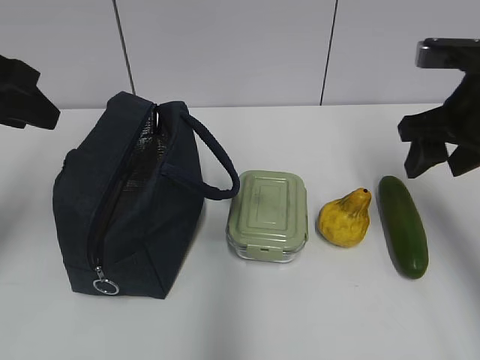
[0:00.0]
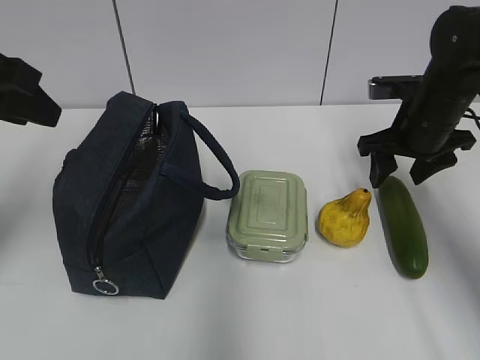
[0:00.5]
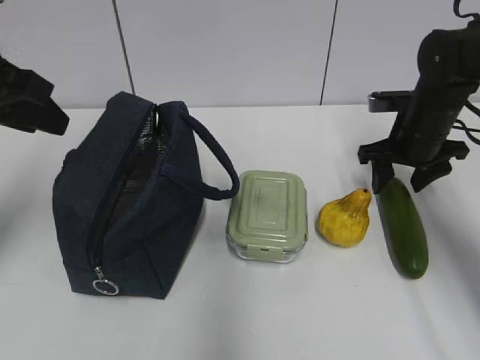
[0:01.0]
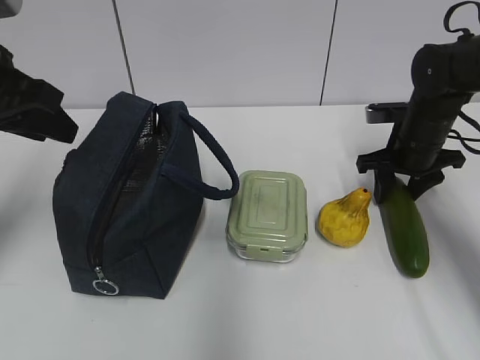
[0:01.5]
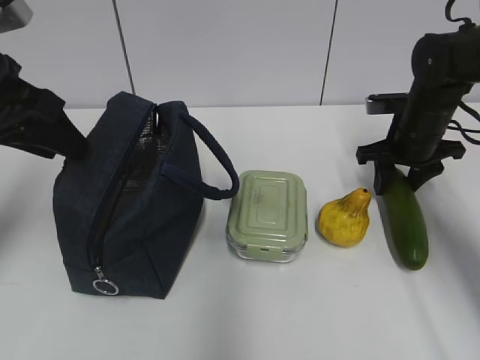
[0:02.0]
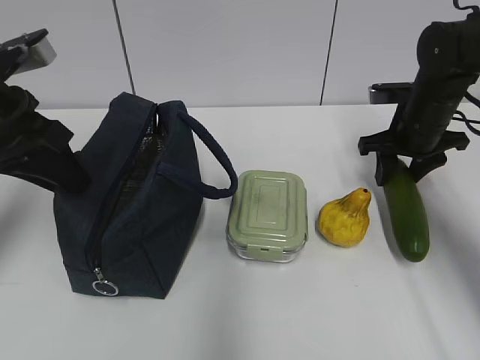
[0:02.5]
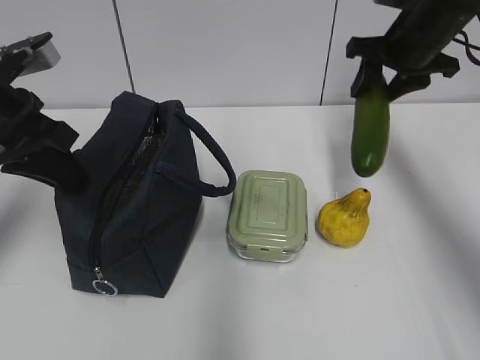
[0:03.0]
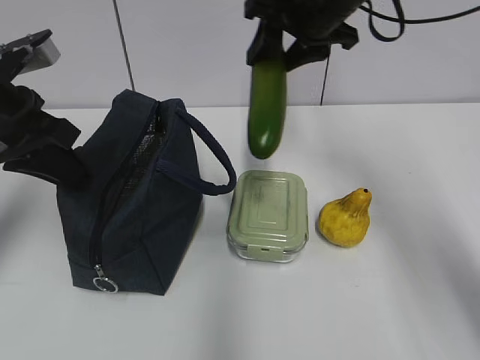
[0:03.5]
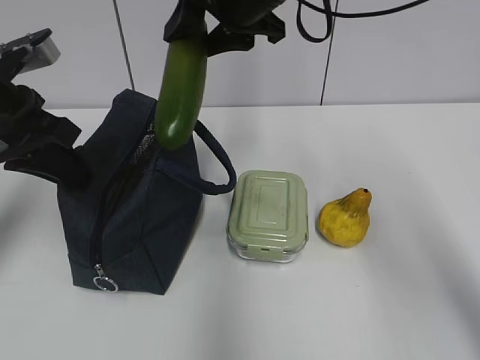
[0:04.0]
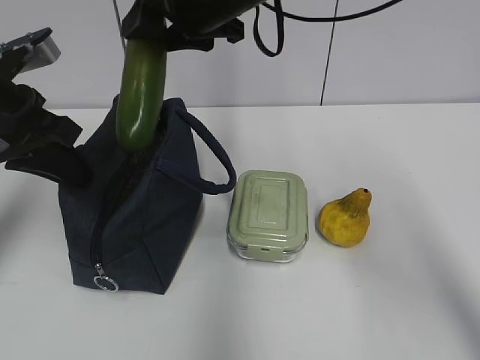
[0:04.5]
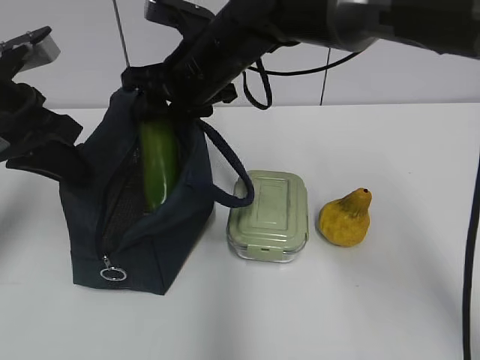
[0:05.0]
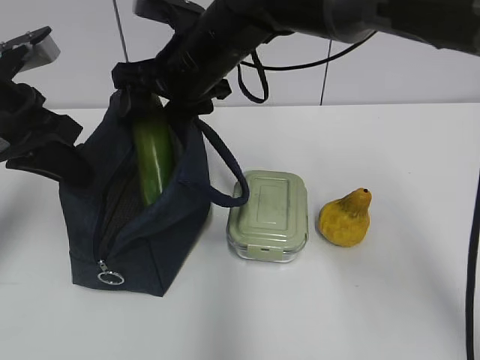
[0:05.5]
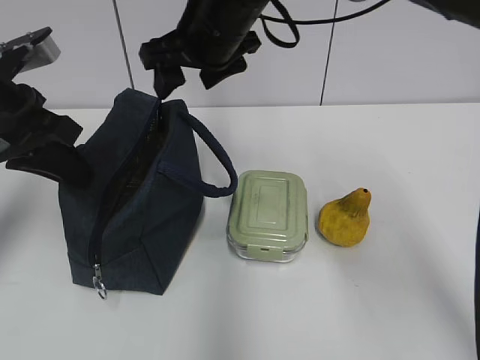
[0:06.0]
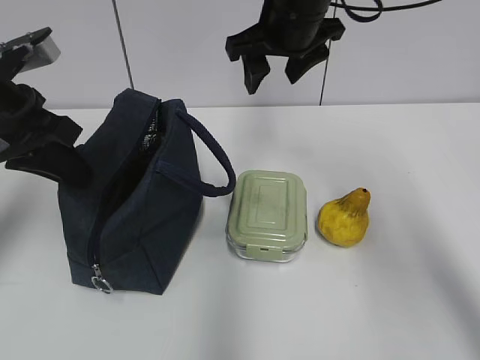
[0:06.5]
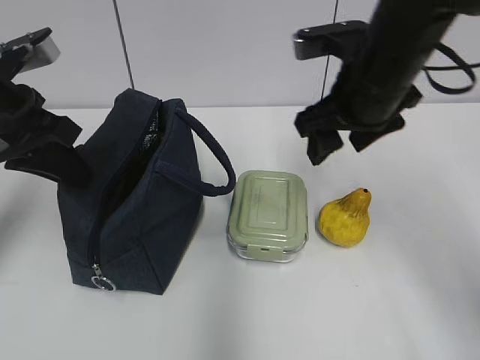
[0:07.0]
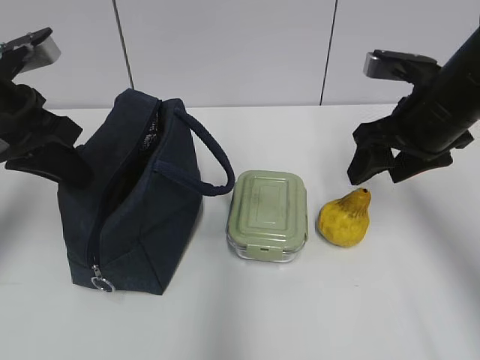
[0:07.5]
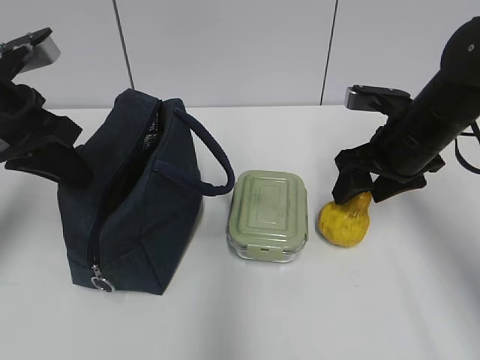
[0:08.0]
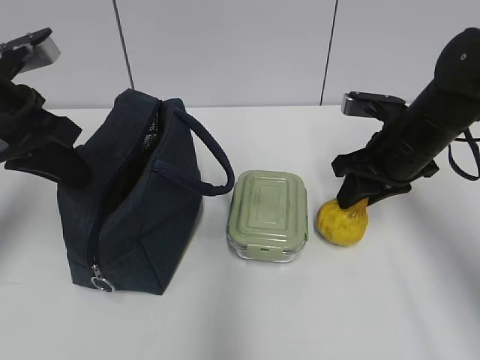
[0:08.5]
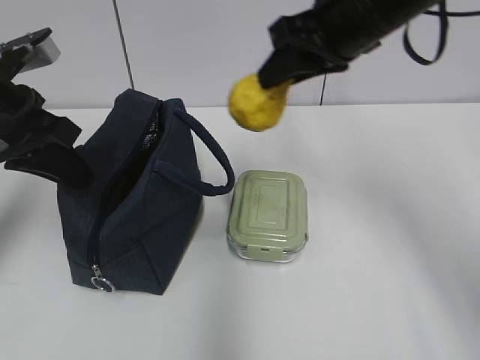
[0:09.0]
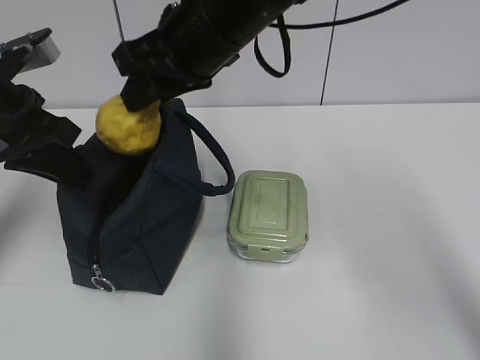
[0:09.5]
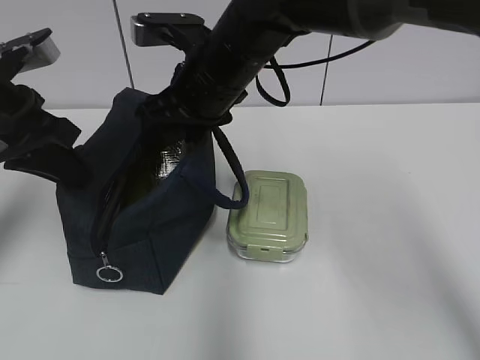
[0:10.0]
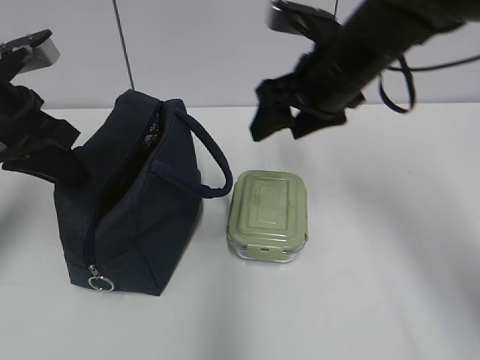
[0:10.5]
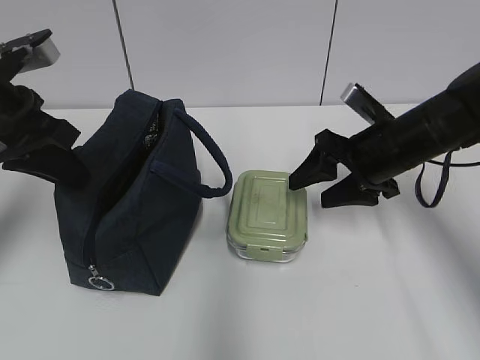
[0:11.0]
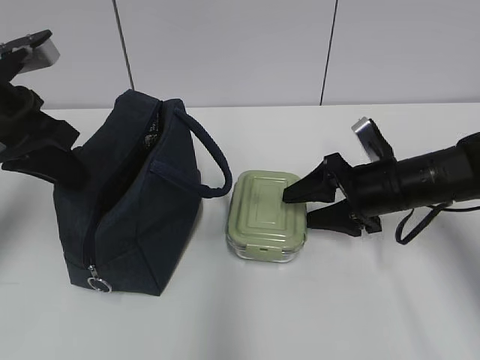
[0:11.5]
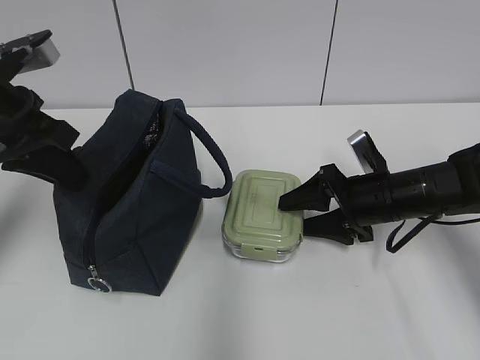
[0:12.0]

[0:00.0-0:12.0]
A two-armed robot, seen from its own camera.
Step, 0:05.0 to 0:06.0: Place it into the bag with your right hand.
Step, 0:06.5 to 0:08.0: Grab the pear with your right hand.
Step, 0:08.5 to 0:10.0: Place it into the bag with your right hand.
0:00.0 to 0:02.0: The right gripper heads forward and downward, covering about 15 cm.
0:02.0 to 0:04.0: The right gripper heads to the left and upward, covering roughly 30 cm. The left gripper closes.
0:06.0 to 0:08.0: The right gripper is displaced to the right and downward by approximately 25 cm.
0:08.0 to 0:10.0: The right gripper is displaced to the left by roughly 20 cm, and closes and opens again.
0:10.0 to 0:12.0: The right gripper moves to the right and downward, about 25 cm.

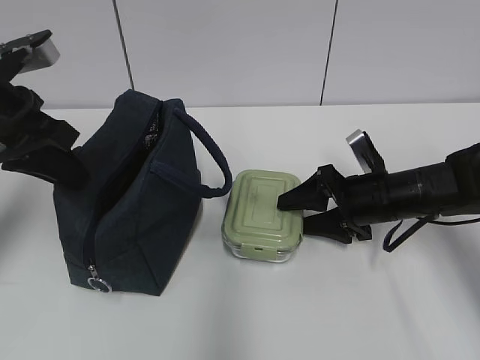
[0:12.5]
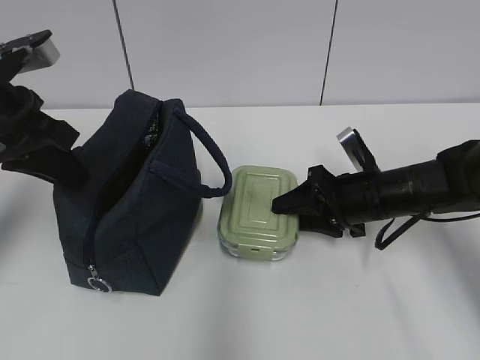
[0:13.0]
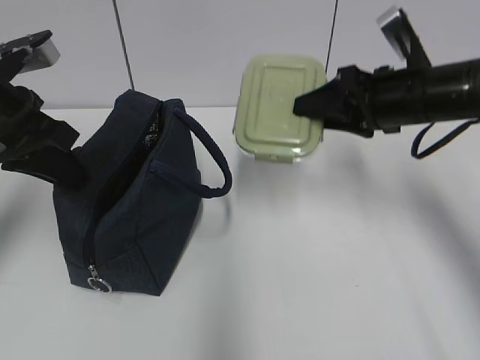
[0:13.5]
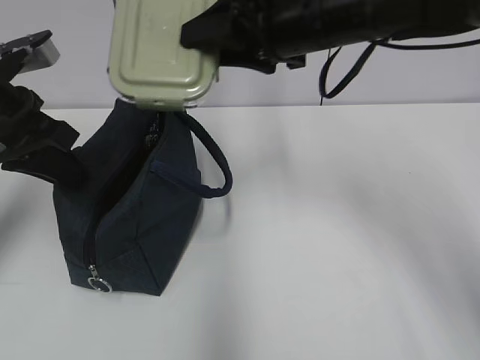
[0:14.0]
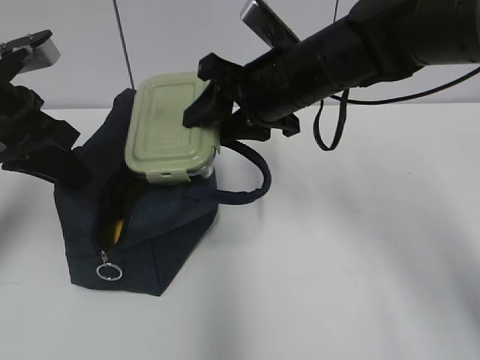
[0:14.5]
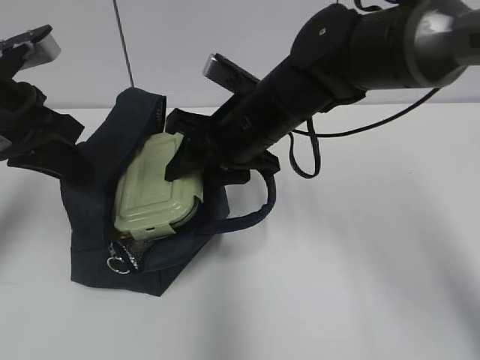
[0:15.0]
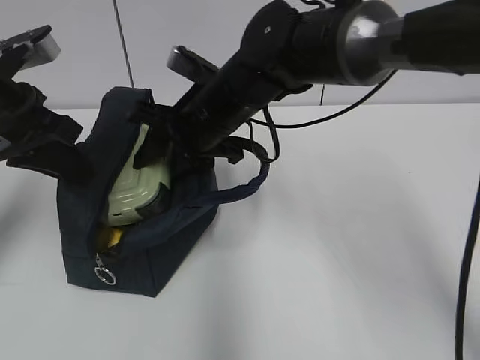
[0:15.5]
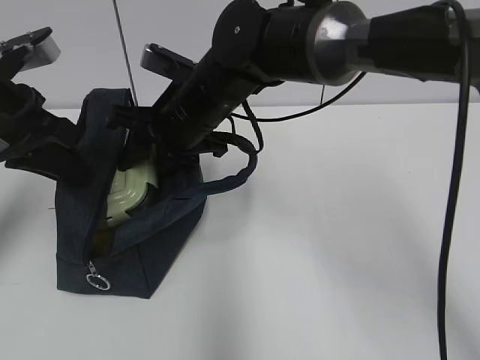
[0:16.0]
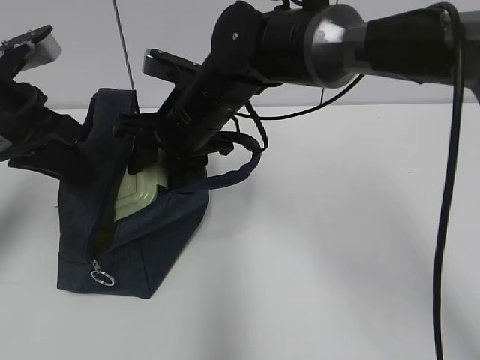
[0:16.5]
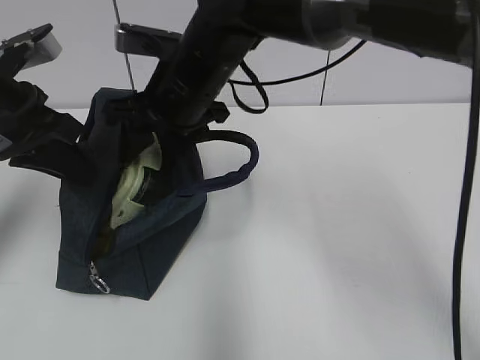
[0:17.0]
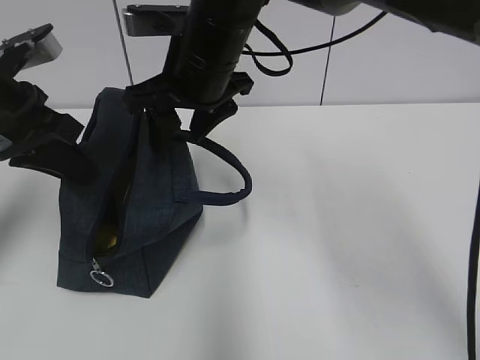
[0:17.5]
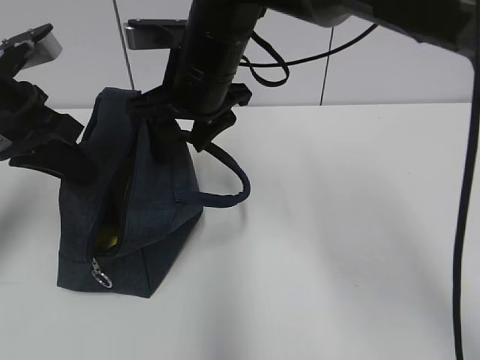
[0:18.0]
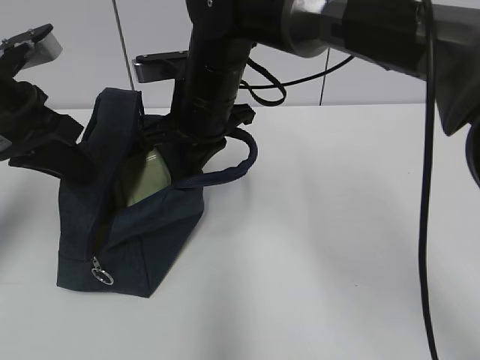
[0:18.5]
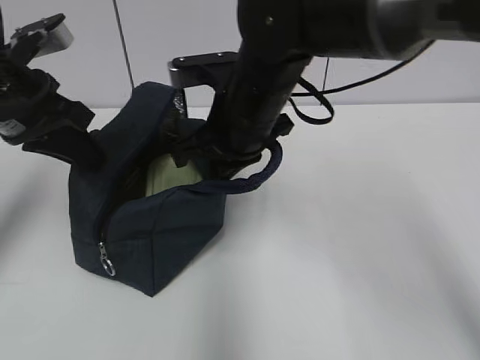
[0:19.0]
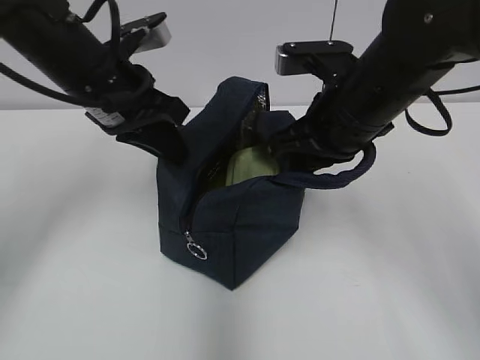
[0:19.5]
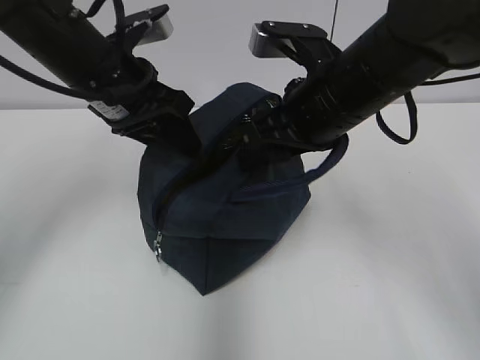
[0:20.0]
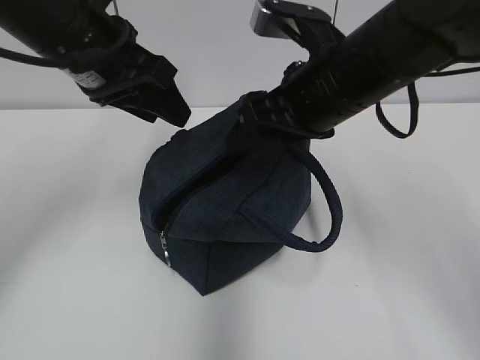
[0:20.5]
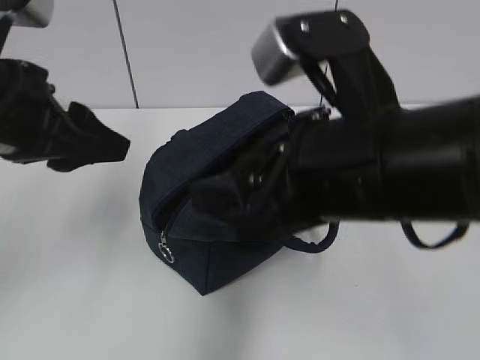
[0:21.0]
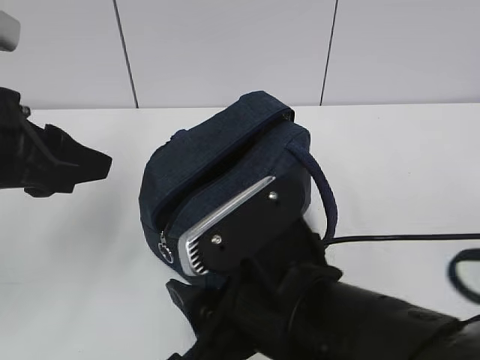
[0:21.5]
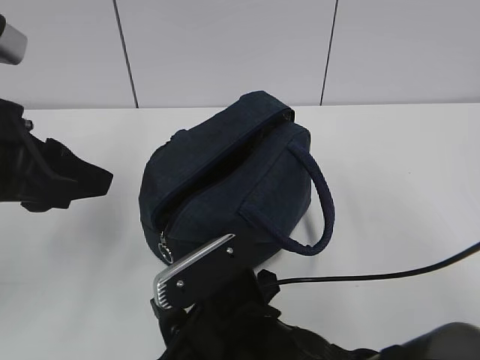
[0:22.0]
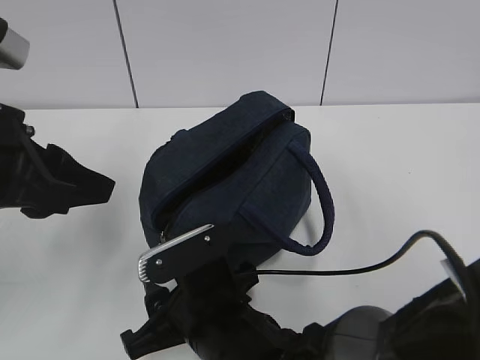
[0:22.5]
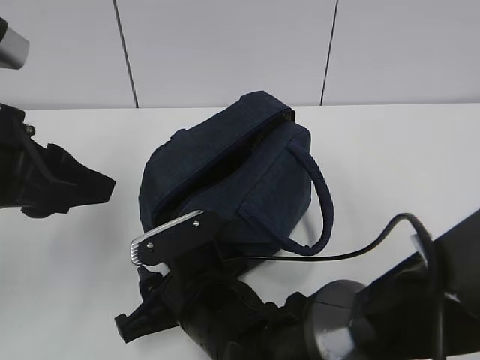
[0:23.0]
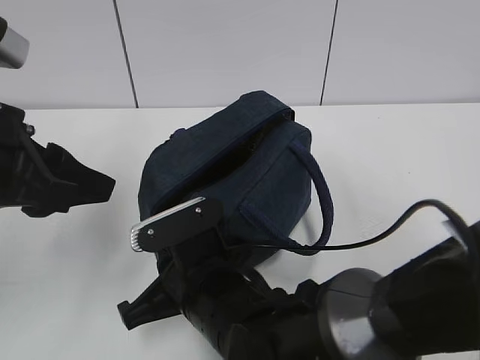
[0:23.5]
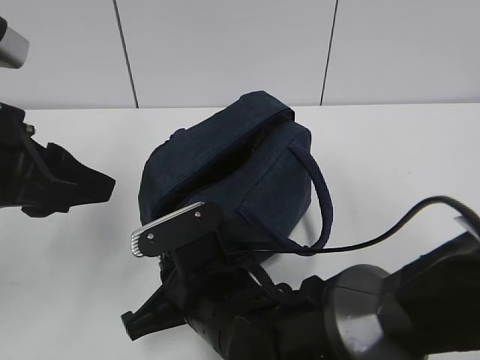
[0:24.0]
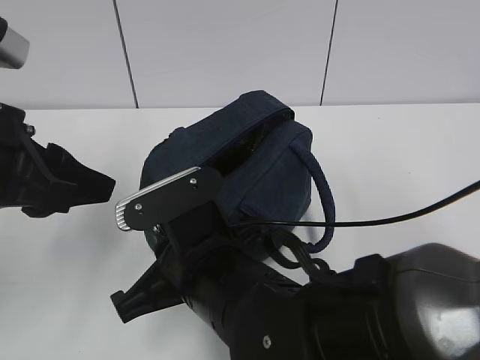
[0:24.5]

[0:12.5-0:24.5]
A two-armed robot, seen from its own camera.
Step, 0:17.5 to 0:18.0: Grab the lunch bag with your right hand.
Step, 0:18.5 to 0:19.5: Move the lunch bag to the right.
0:12.5 to 0:14.5: The right gripper shifts some 20 cm upward and to the left.
0:14.5 to 0:16.5: The right gripper is displaced to the left by about 10 cm.
0:16.5 to 0:18.5: The right gripper closes.
0:18.5 to 0:20.5: The left gripper is displaced to the right by some 10 cm, and opens. Meanwhile the right gripper shifts about 15 cm to the right and backward, and opens its fingers.
0:20.5 to 0:22.5: The right gripper is displaced downward, to the left and backward by approximately 25 cm. Meanwhile the left gripper is displaced backward and to the left by roughly 15 cm.
0:22.5 to 0:24.5: The right gripper shifts about 5 cm upward, and closes its fingers.

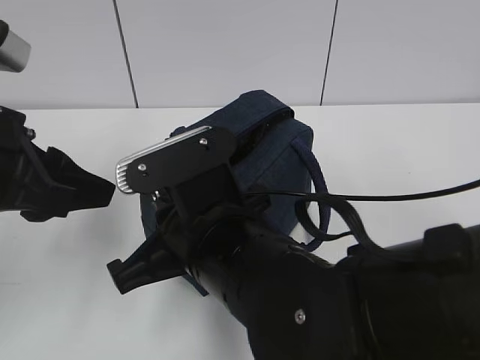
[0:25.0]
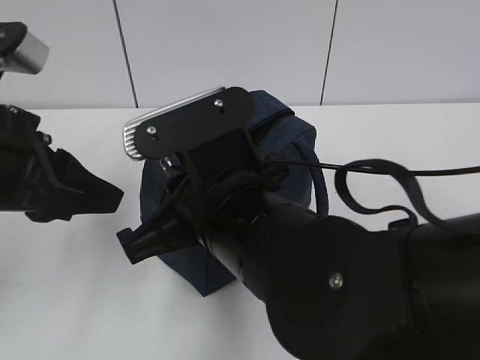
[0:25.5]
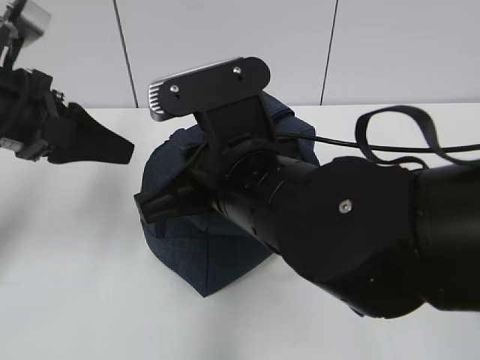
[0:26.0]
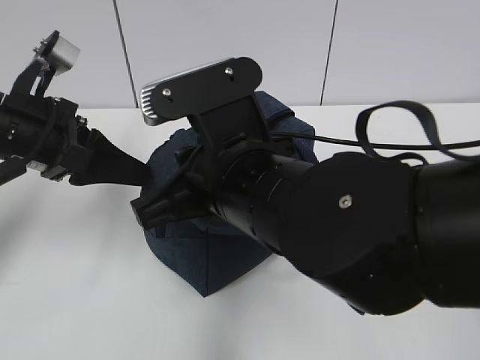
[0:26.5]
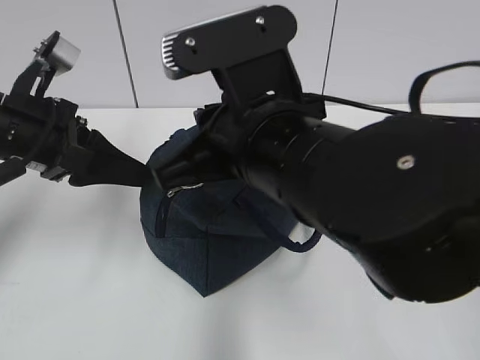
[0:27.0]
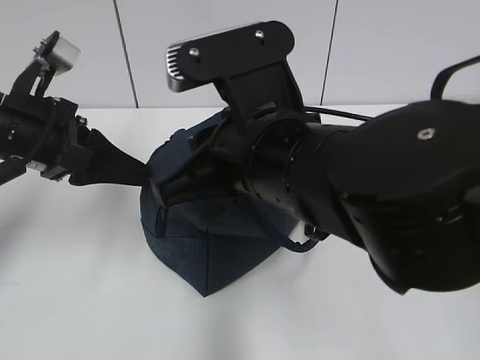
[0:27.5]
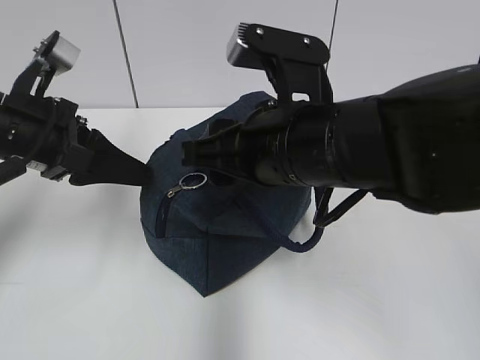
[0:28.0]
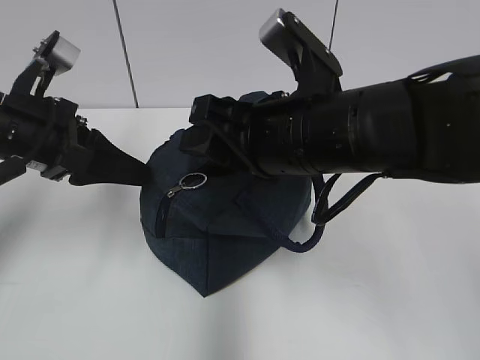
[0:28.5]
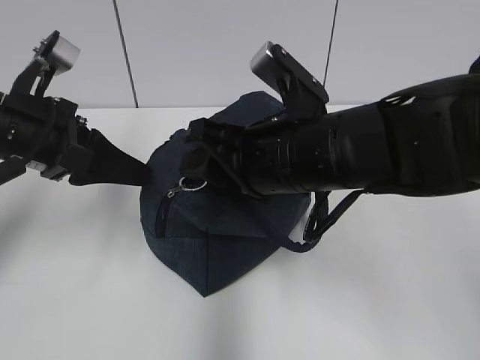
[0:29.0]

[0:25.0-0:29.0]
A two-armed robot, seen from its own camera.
0:25.0 to 0:27.0: The left gripper is displaced forward by about 10 cm. Meanwhile the right gripper moves upward, approximately 5 cm.
0:27.0 to 0:29.0: The right gripper shifts by some 5 cm, and opens up.
